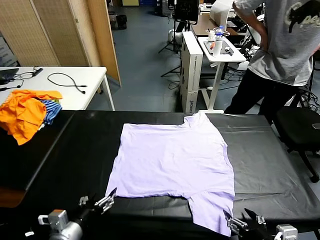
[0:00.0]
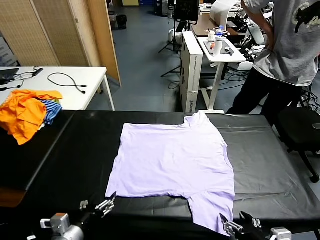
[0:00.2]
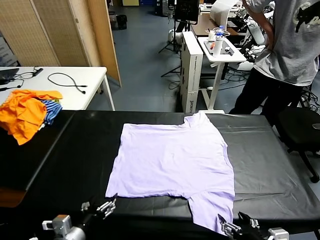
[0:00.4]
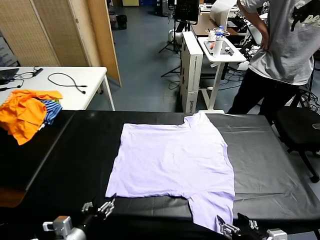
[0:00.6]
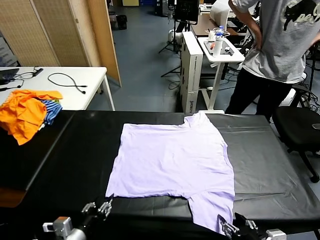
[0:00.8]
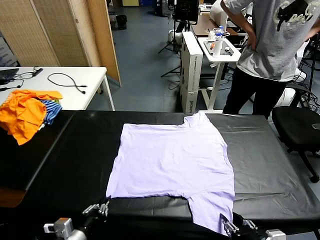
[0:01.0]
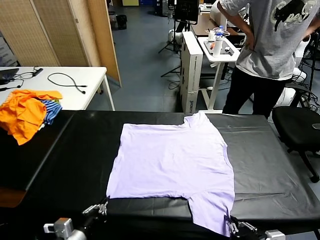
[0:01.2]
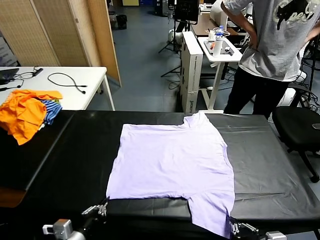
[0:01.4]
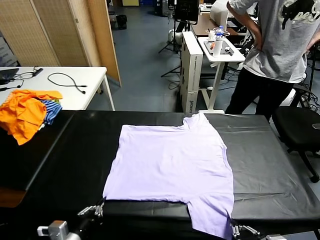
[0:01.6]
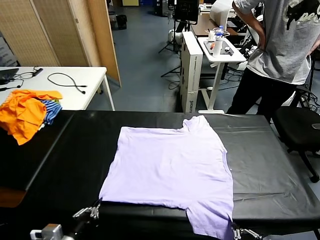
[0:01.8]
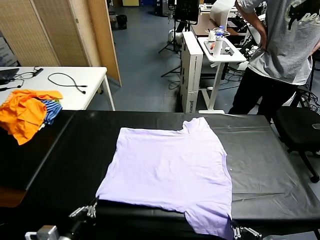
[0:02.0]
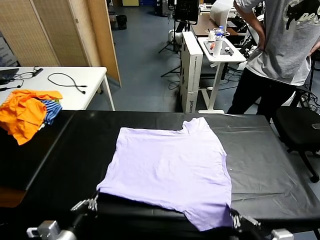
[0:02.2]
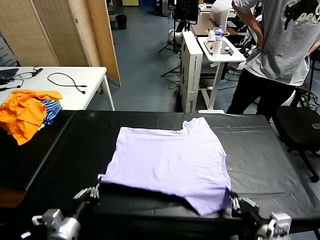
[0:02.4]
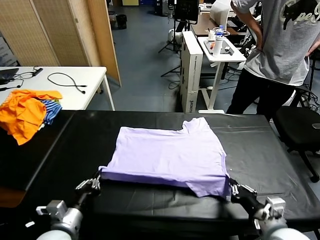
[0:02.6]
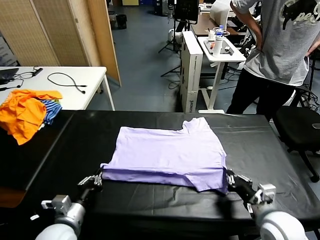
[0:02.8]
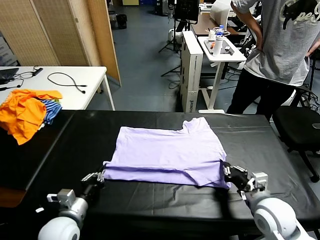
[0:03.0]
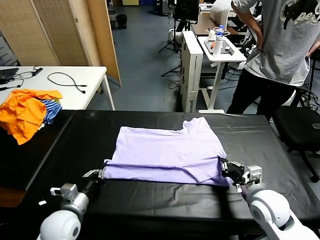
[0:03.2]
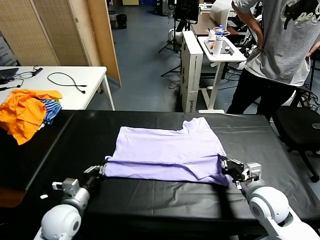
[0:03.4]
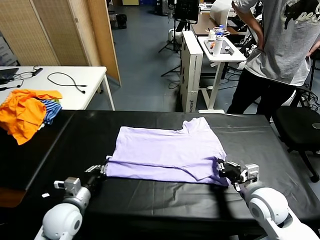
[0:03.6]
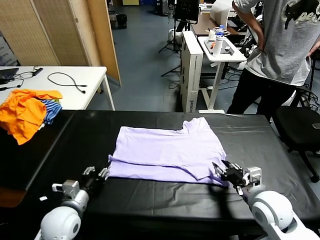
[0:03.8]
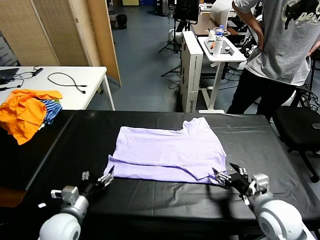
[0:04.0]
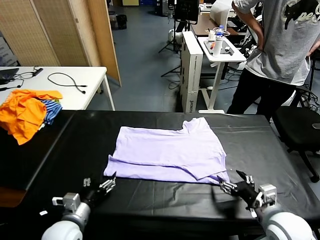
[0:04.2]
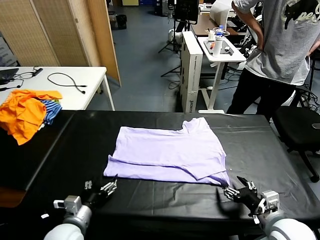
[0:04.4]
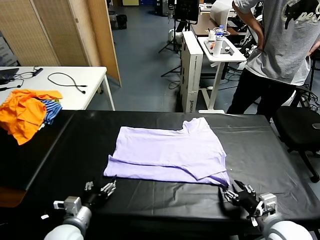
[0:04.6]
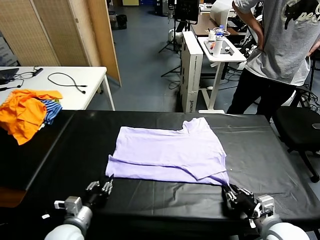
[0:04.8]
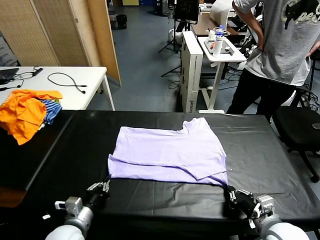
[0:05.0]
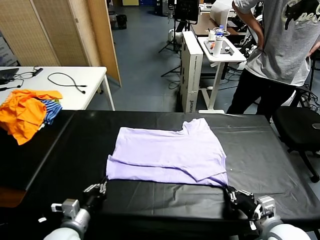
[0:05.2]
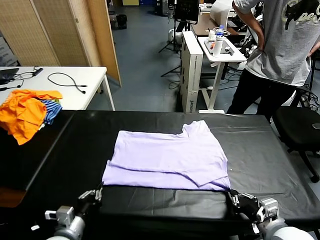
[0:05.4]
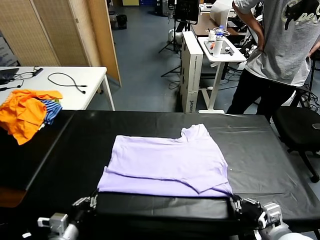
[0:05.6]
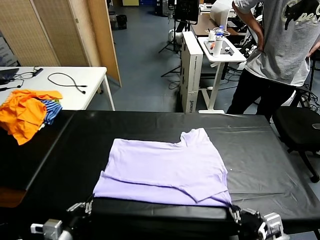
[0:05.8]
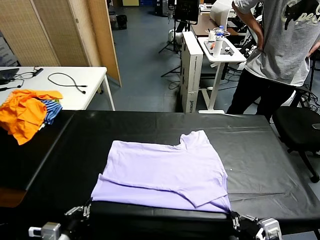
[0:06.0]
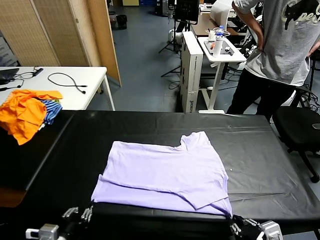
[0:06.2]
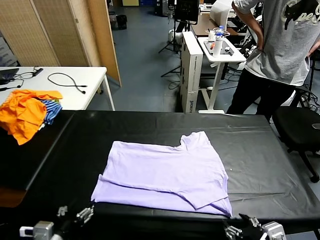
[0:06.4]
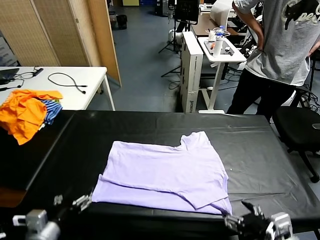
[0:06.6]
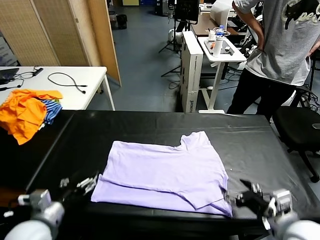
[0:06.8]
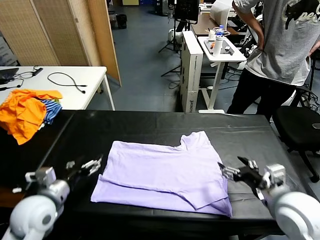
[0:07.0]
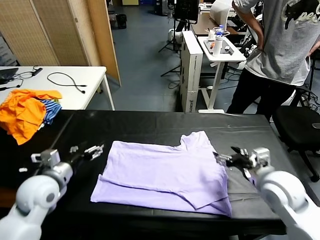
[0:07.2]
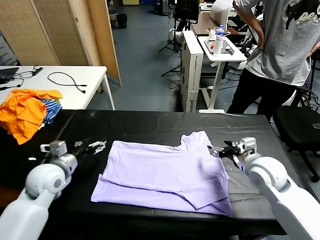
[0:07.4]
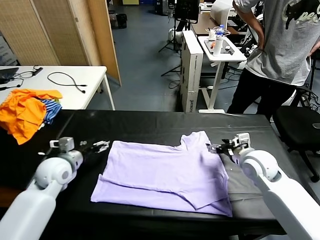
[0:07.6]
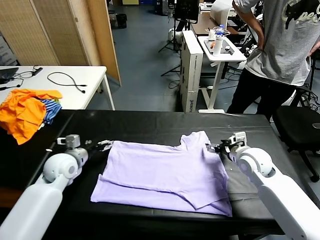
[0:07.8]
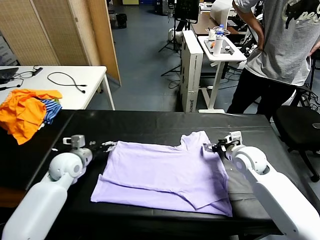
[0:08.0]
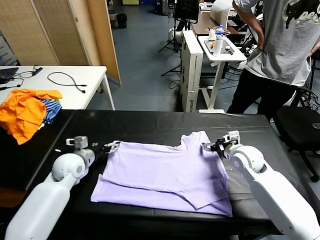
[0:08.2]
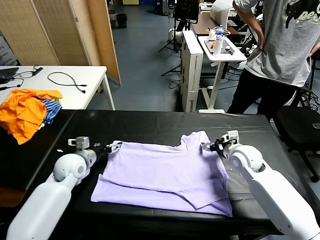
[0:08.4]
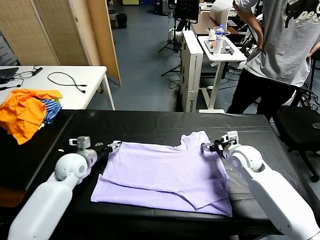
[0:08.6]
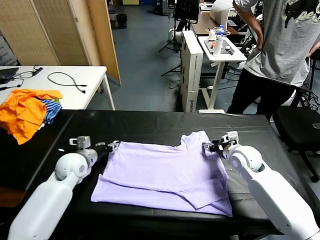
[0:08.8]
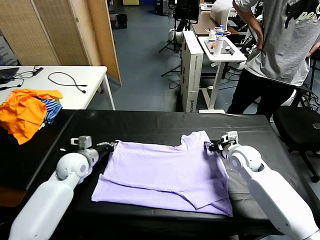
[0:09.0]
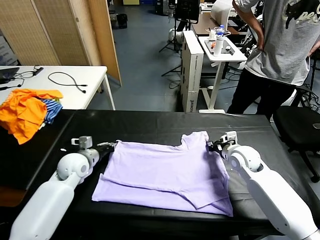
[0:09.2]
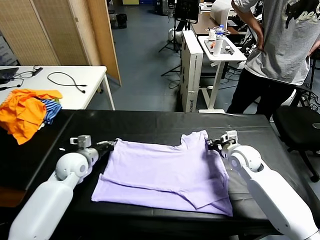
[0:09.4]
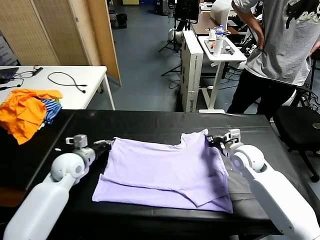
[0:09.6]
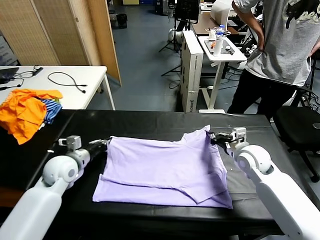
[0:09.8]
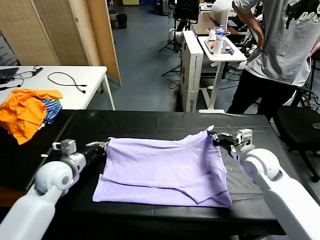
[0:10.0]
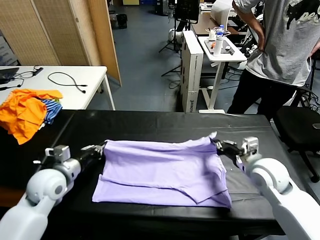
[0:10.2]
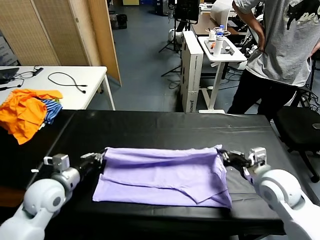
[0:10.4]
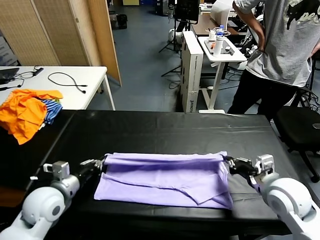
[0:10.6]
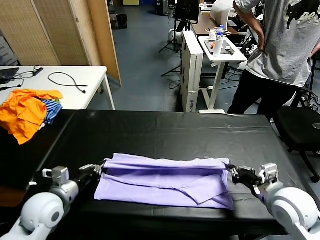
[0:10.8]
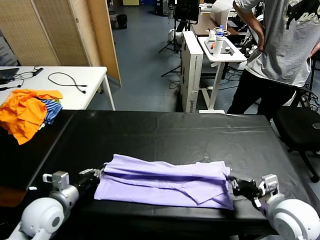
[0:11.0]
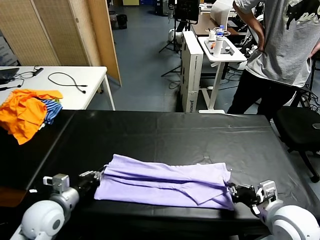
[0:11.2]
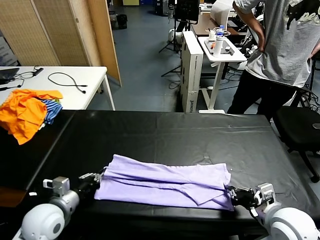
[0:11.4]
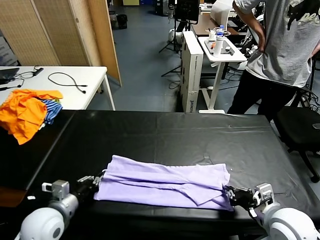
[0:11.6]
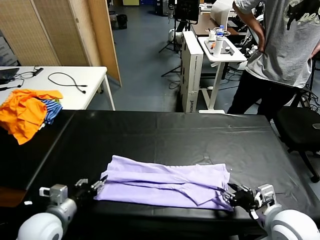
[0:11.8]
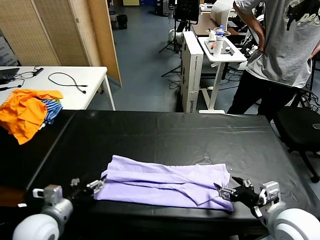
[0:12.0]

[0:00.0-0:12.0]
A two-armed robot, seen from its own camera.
Task of the whole recording: fold and organize the clothes.
Step, 0:00.0 to 0:01.6: use both grippers simultaneously to clamp the lower edge of the clothing fabric.
Step, 0:01.8 to 0:04.0: use both grippers to drag the lower edge of the fabric forward and fold it over the upper edge.
Step, 0:04.2 to 0:06.4: Drag the clothes downward with both gripper.
Step, 0:06.6 to 0:09.2: use both grippers simultaneously to clamp the upper edge of the clothing fabric.
0:01.6 to 0:03.0: The right gripper moves forward, approximately 20 cm; the left gripper heads forward, covering roughly 10 cm.
0:03.0 to 0:04.4: The right gripper travels backward by approximately 10 cm, and opens its fingers; the left gripper opens its fingers.
0:04.4 to 0:06.0: The grippers both shift backward by approximately 10 cm. The left gripper closes up. Meanwhile the right gripper closes, then opens again.
0:06.0 to 0:07.6: Both grippers travel together forward, roughly 25 cm. The right gripper opens its fingers, while the left gripper opens up.
0:07.6 to 0:09.0: The right gripper closes up. The left gripper shifts by approximately 5 cm, and closes its fingers.
0:09.0 to 0:10.4: The left gripper shifts approximately 10 cm backward, while the right gripper travels backward and upward by about 15 cm.
0:10.4 to 0:12.0: The grippers both shift backward by approximately 10 cm. The right gripper opens up. The left gripper opens.

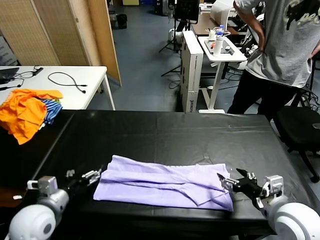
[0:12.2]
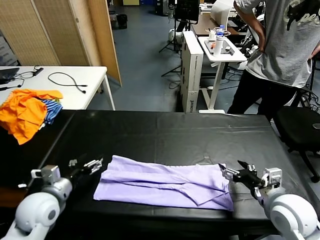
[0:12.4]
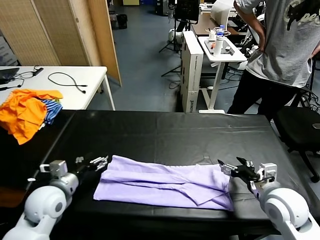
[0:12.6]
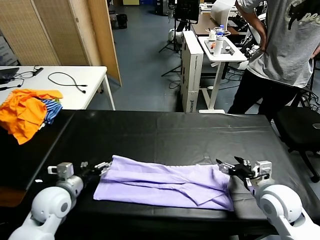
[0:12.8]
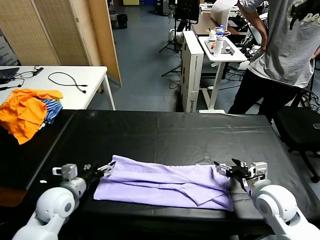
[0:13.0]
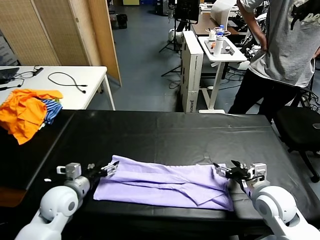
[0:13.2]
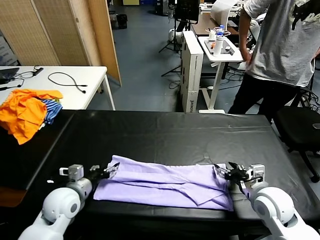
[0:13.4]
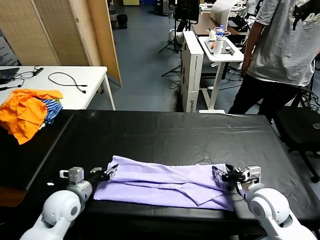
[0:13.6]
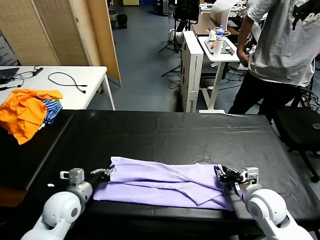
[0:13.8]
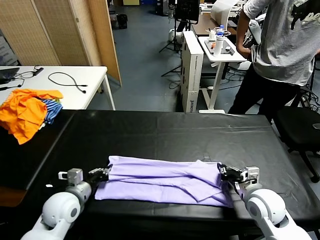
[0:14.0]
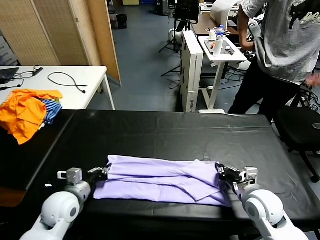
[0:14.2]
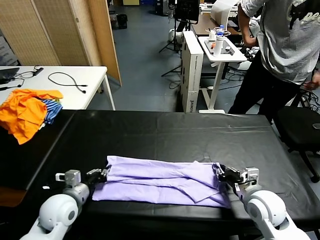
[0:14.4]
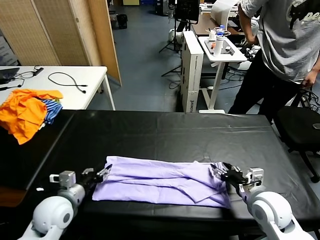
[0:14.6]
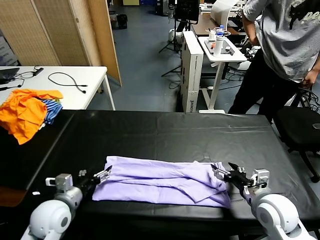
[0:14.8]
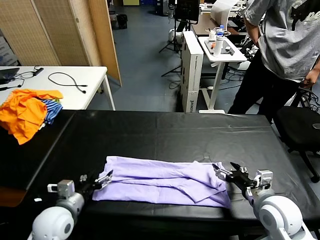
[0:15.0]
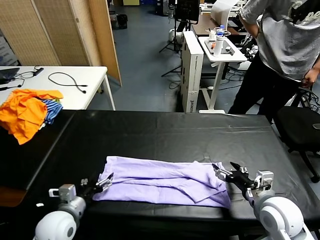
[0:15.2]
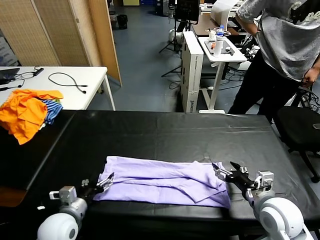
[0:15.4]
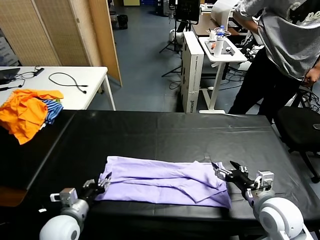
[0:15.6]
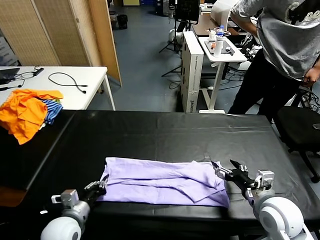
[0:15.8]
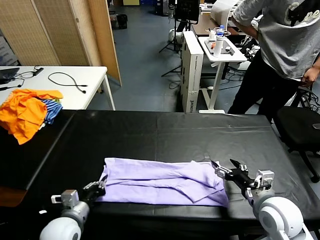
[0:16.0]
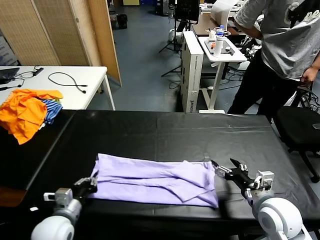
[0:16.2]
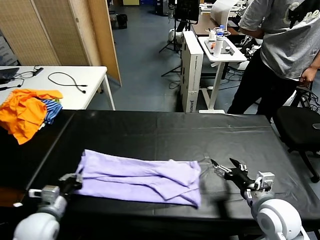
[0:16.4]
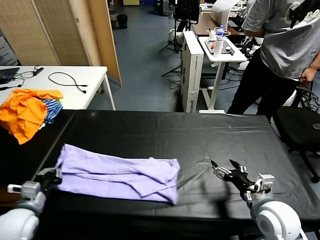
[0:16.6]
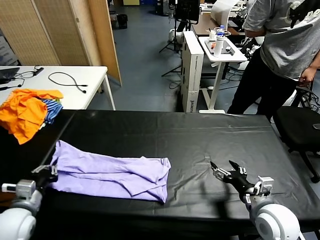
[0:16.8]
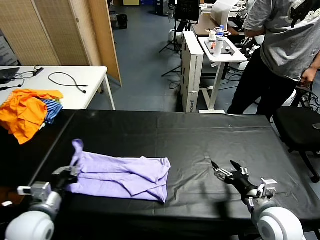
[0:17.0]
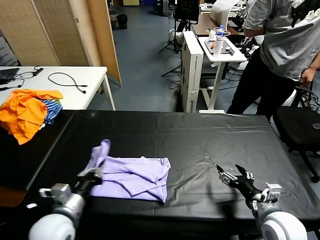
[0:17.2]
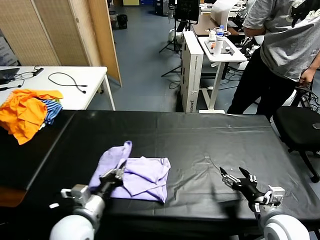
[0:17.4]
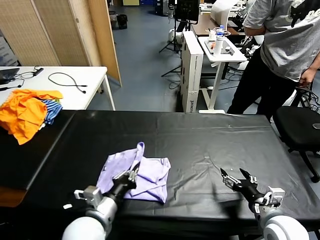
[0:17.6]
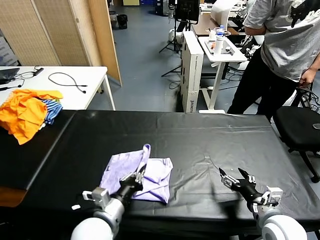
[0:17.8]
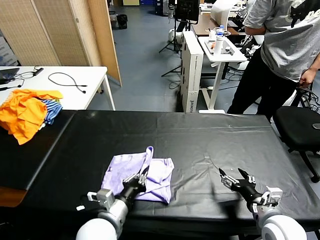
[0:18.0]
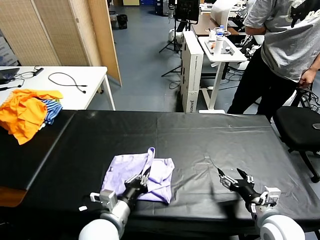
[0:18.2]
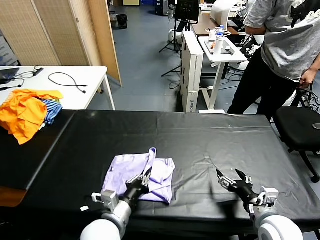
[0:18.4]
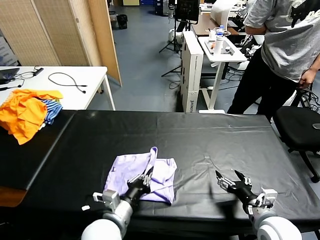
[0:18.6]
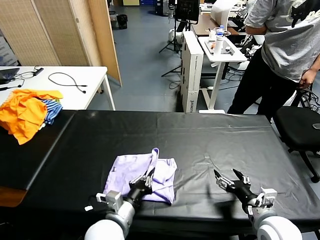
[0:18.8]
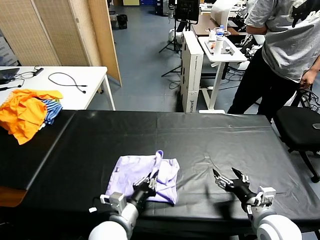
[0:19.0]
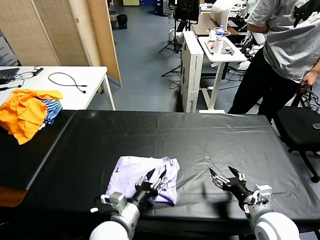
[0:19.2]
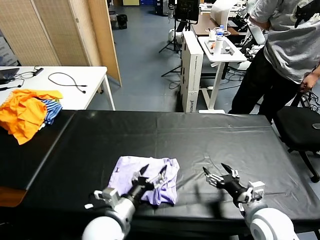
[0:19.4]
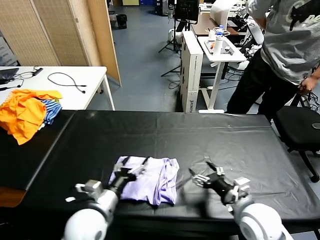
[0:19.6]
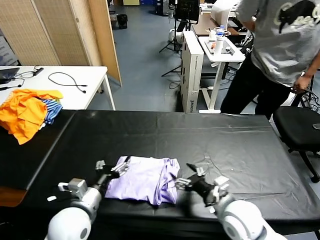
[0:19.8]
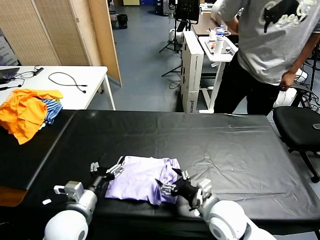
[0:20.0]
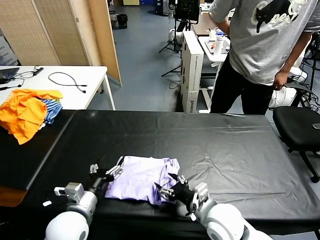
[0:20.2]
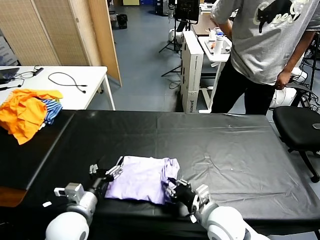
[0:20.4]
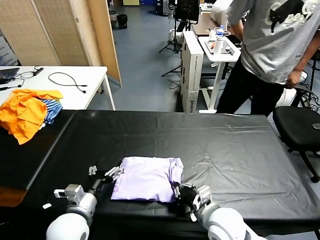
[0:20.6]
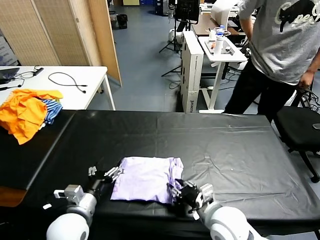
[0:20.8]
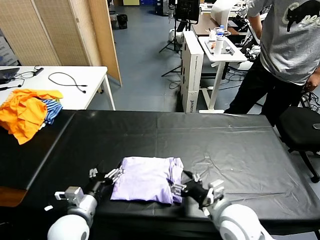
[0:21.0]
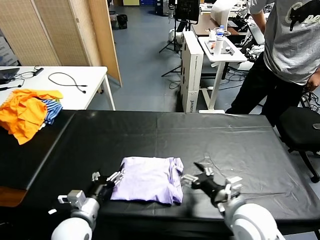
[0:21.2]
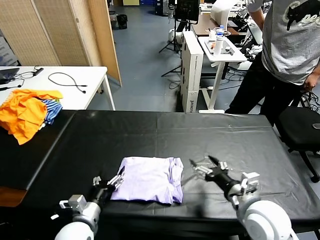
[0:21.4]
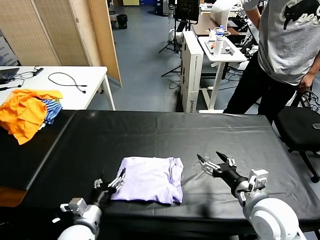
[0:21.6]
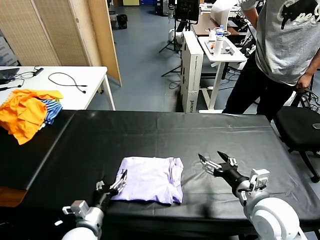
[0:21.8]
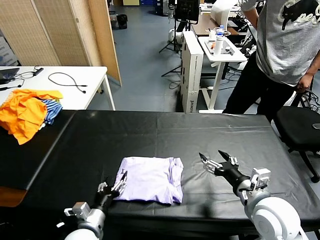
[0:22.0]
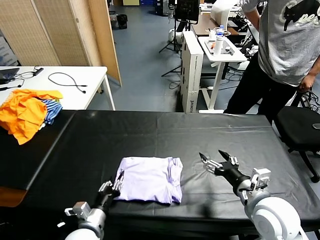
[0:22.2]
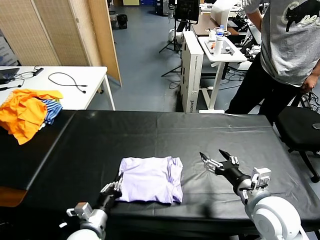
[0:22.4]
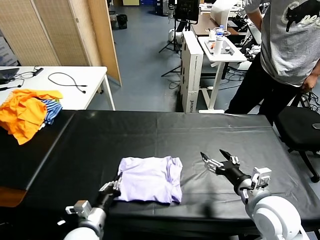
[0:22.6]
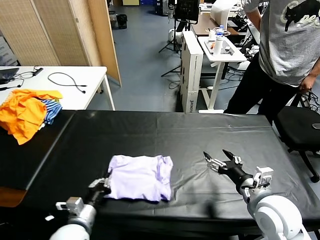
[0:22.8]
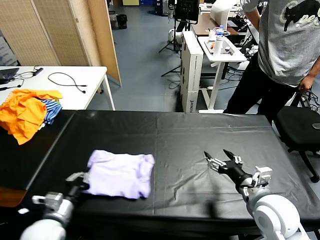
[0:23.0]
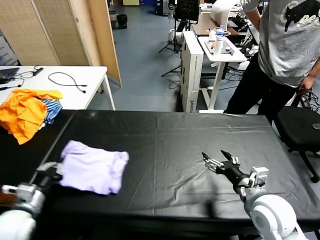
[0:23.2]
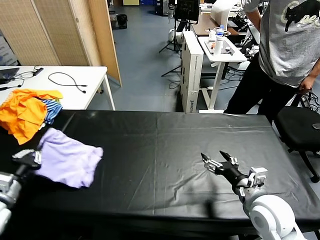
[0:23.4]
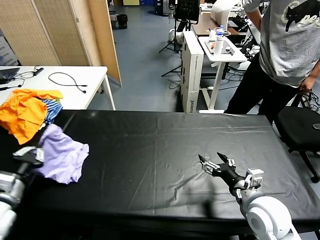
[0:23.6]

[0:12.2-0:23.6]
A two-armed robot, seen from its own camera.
Task of the whole recording: fold and organize the clothes.
Step, 0:12.2 to 0:14.8: use both grippers to drag the upper edge of the fabric backward and fold it over the lower edge.
Step, 0:15.0 to 0:16.0: use the left gripper to clamp the left edge of the fabric.
Step, 0:16.2 to 0:21.0: use the left gripper to drag the left edge of the fabric to the left and folds it over the right edge.
0:12.2 to 0:13.6: The left gripper travels forward by some 5 cm, and closes its fingers; the right gripper moves downward and forward, some 10 cm.
0:13.6 to 0:15.0: The right gripper closes, then opens again, while the left gripper opens.
0:15.0 to 0:16.4: The left gripper closes.
0:16.4 to 0:17.8: The left gripper heads to the right, covering roughly 15 cm.
0:17.8 to 0:19.4: The left gripper opens its fingers.
0:19.4 to 0:20.8: Both grippers travel together to the left, approximately 10 cm. The right gripper closes up.
0:20.8 to 0:22.2: The left gripper goes about 5 cm downward, and closes up; the right gripper shifts some 10 cm to the right and upward, and opens.
0:22.2 to 0:23.6: The left gripper heads to the left and upward, covering some 25 cm, and closes up.
